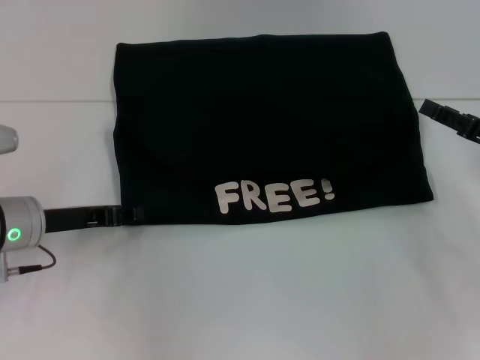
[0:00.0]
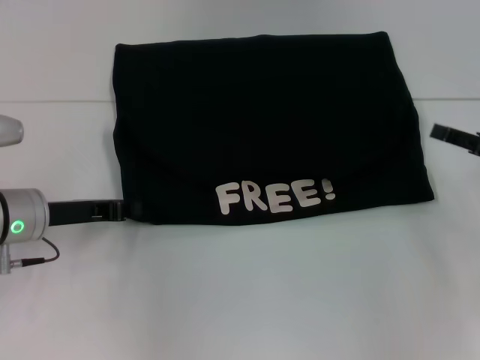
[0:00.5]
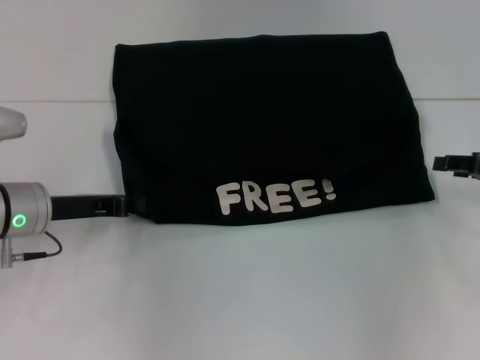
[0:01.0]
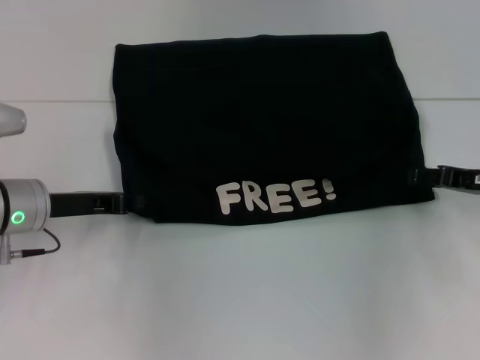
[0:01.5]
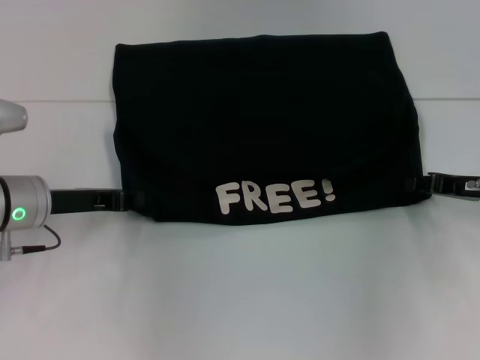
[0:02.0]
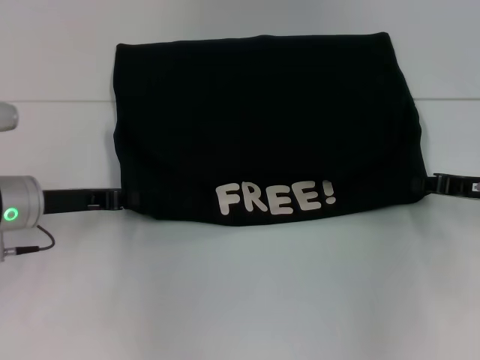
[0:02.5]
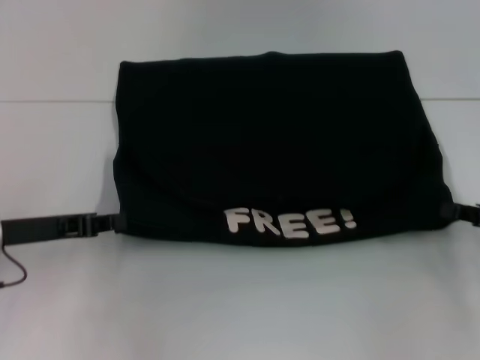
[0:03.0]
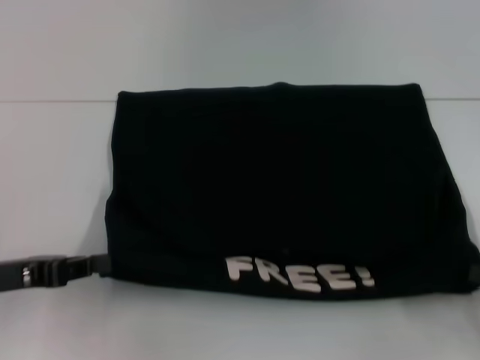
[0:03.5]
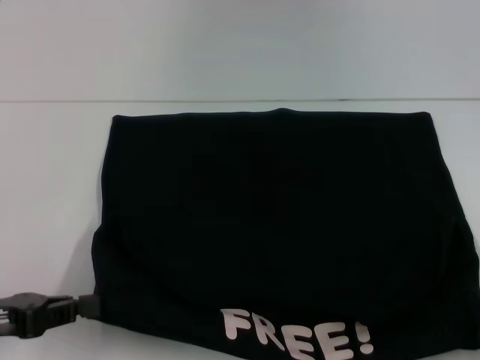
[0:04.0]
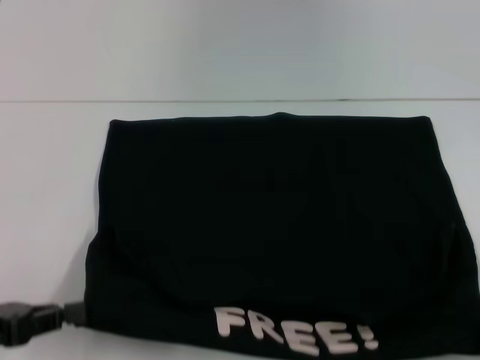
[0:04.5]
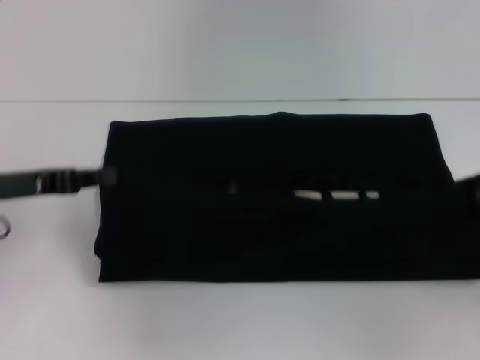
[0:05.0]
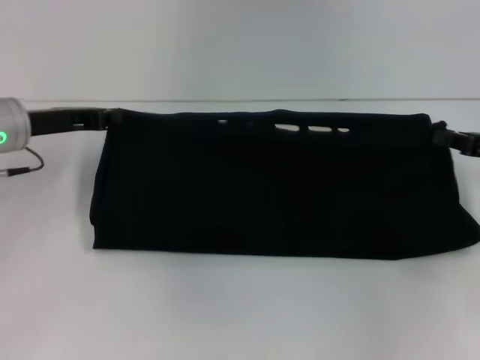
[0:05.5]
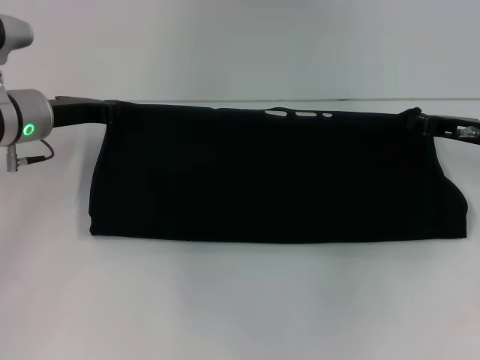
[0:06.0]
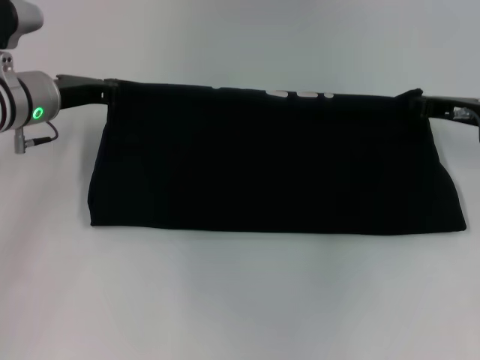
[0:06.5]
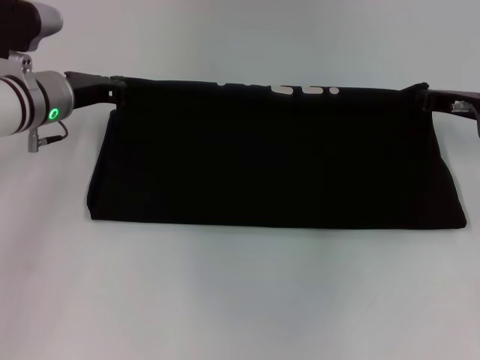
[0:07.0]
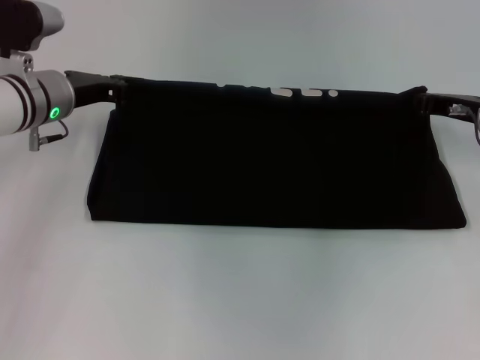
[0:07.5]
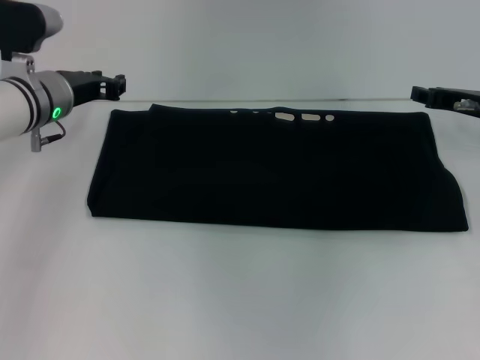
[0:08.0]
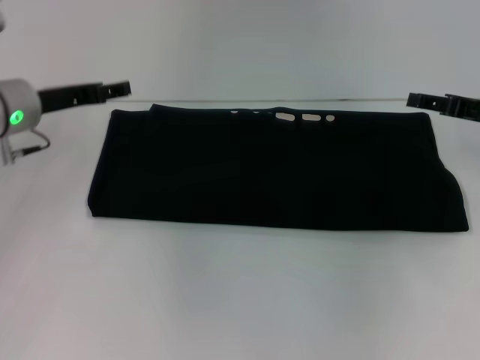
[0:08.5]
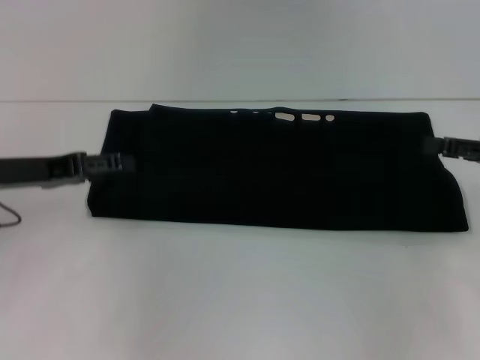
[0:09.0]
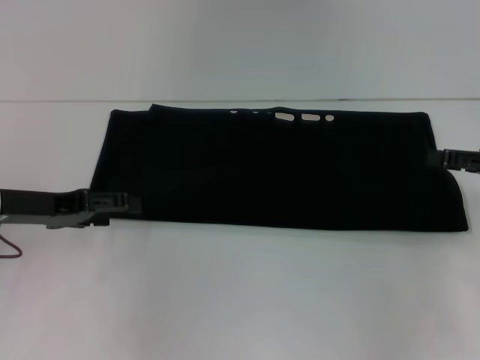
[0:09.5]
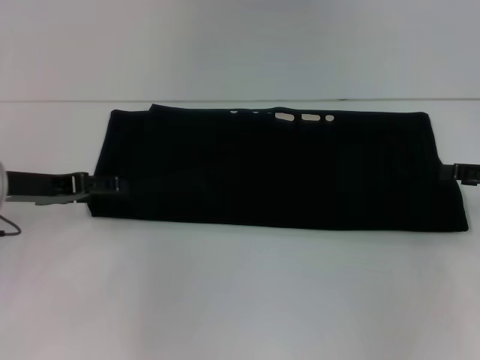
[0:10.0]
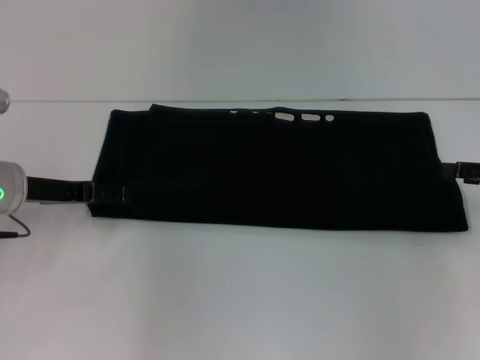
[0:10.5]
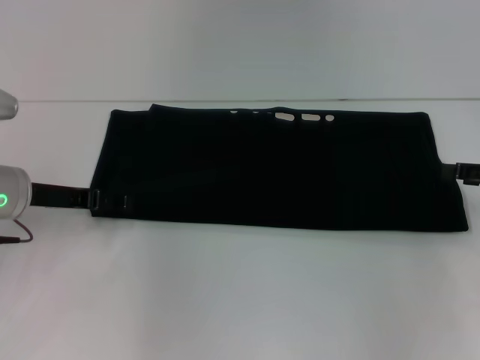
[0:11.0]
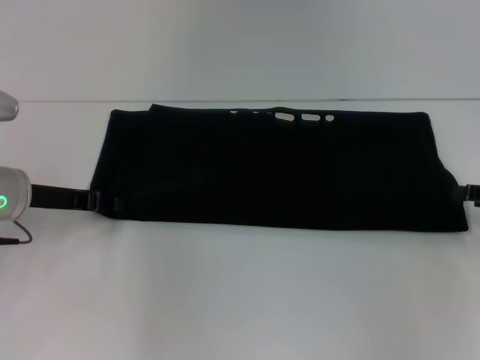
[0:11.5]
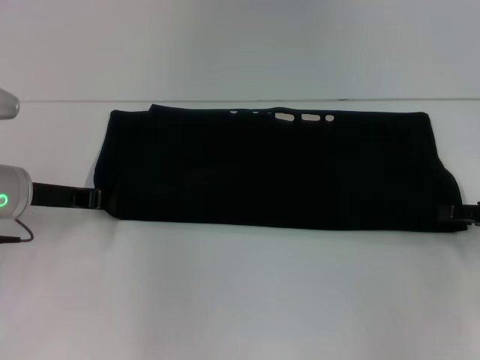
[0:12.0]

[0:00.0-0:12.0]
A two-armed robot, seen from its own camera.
Step, 0:00.0 to 0:04.0: Pull the clothes with your left hand.
Step, 0:00.0 to 0:04.0: Pull the clothes with your right hand.
Step, 0:04.5 to 0:08.0: Fold the clothes with your right hand.
0:00.0 to 0:02.0: The left gripper closes.
0:02.0 to 0:04.0: The left gripper moves backward and to the left, about 15 cm. The right gripper goes approximately 20 cm backward, and closes up.
0:04.0 to 0:06.0: The two grippers go roughly 20 cm forward.
0:06.0 to 0:08.0: The grippers make only small movements.
0:08.0 to 0:10.0: The right gripper travels backward and to the right by about 10 cm, and opens up; the left gripper moves backward and to the left, roughly 10 cm, and opens up.
0:10.0 to 0:12.0: The left gripper closes.

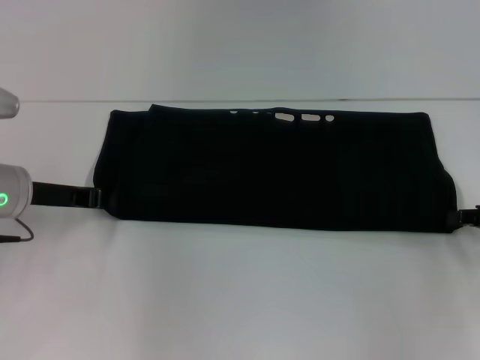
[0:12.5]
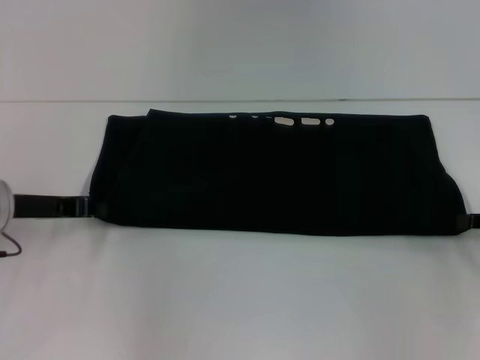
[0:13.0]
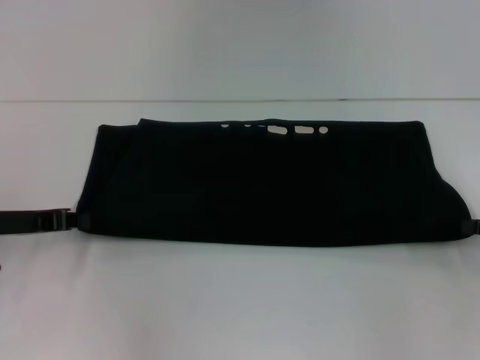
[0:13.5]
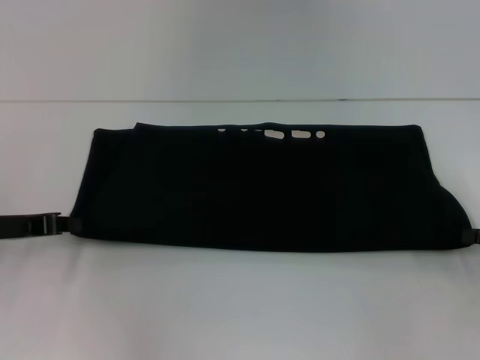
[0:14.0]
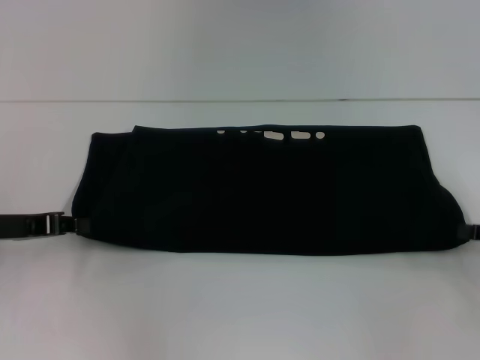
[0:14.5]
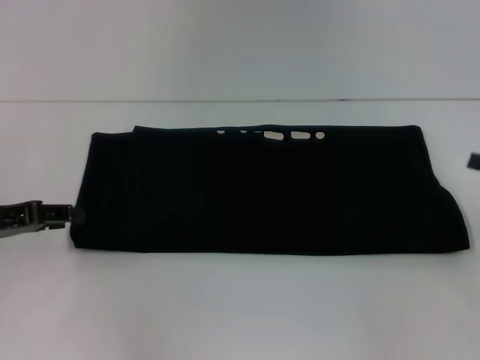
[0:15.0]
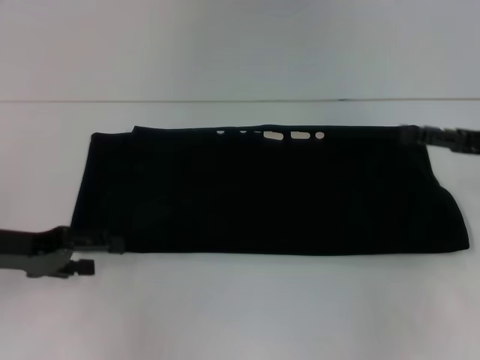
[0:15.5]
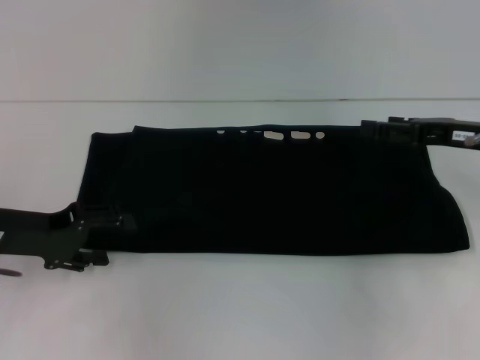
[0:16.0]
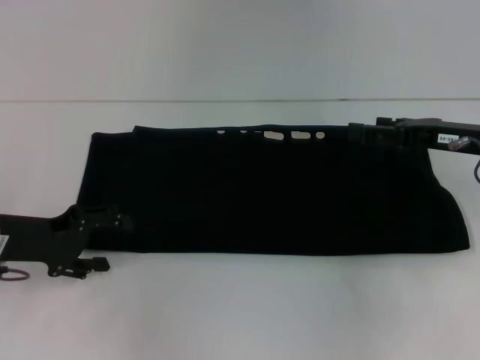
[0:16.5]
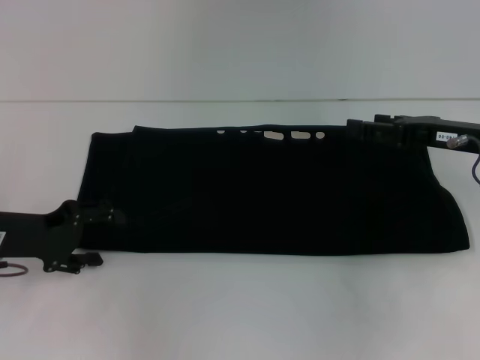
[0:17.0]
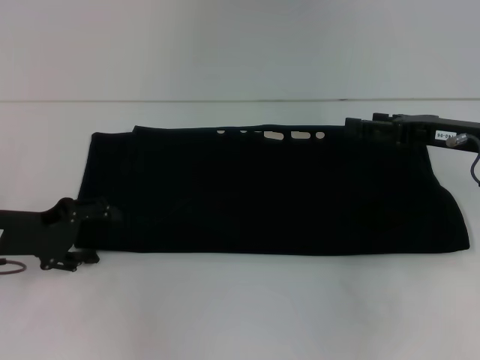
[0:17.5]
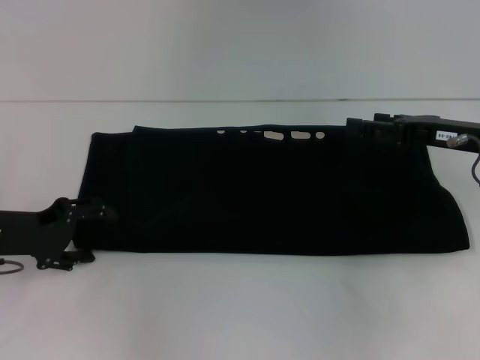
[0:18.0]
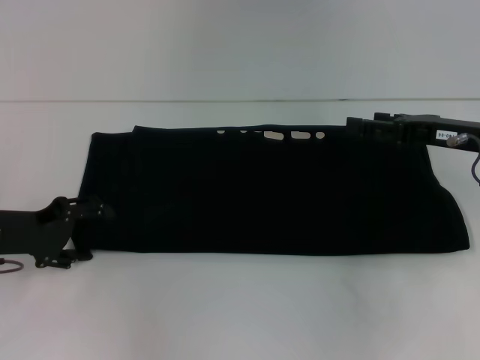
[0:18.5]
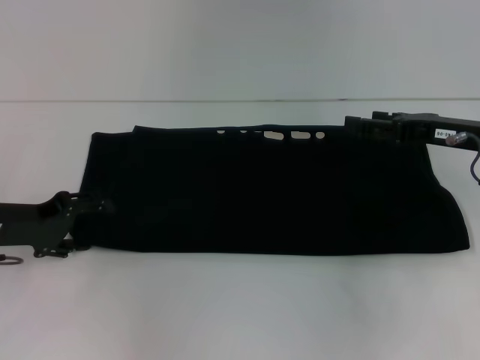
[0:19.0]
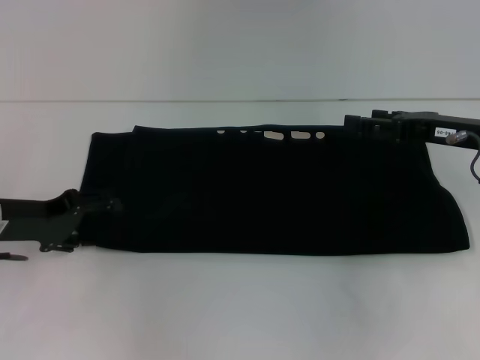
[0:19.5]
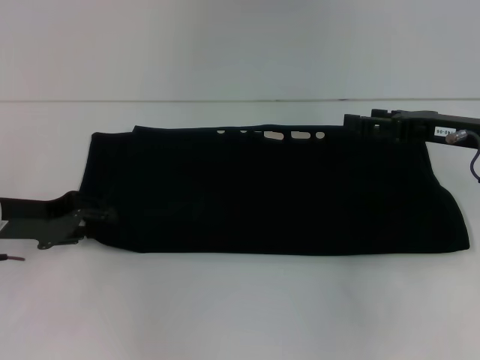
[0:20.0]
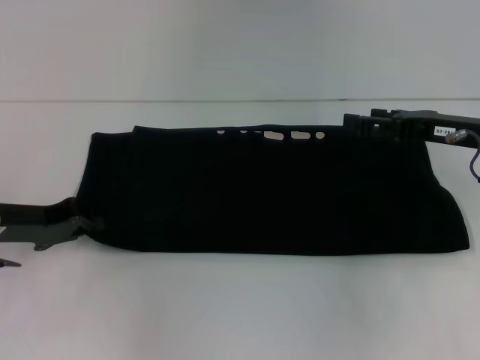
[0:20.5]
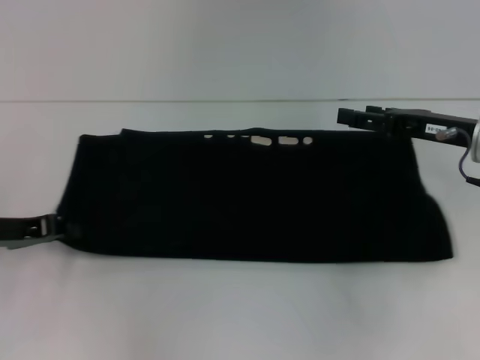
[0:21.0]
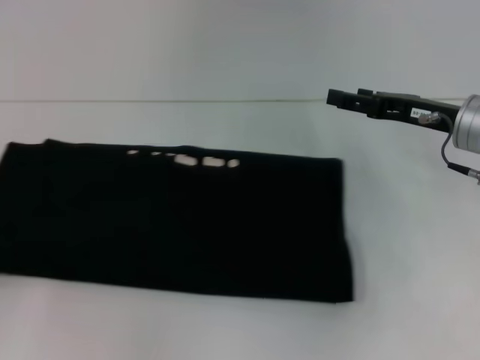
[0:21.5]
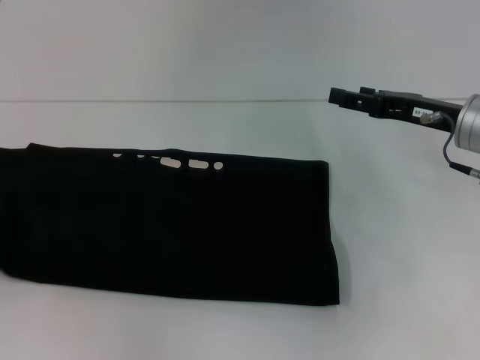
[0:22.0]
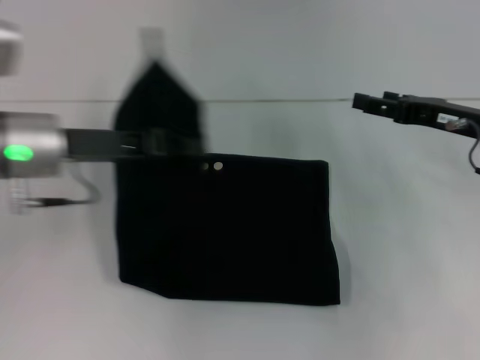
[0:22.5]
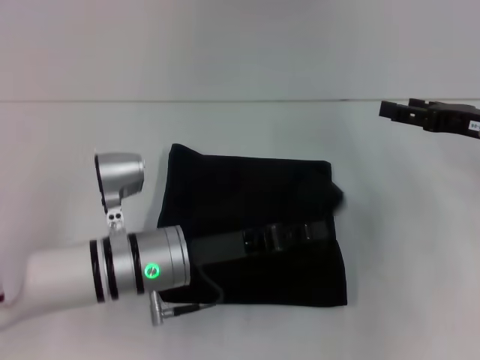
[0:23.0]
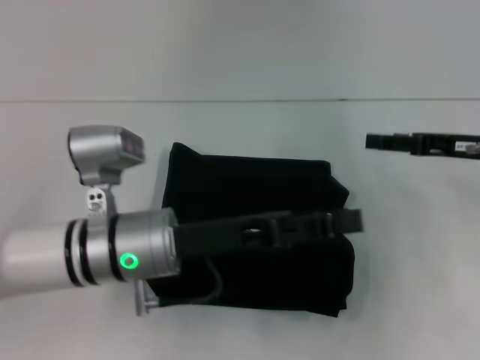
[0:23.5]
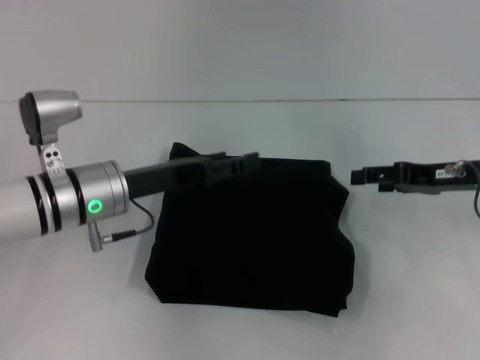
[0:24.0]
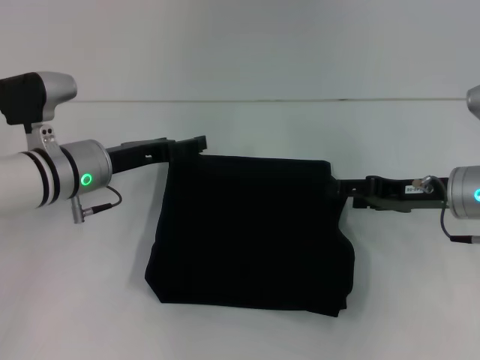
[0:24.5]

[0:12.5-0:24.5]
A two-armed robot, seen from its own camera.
Step, 0:12.5 to 0:23.5: Fold the clothes with your left hand.
0:12.5 to 0:14.5: The left gripper shifts about 5 cm backward.
0:14.5 to 0:16.5: The right gripper goes some 15 cm to the left, forward and upward, and opens, while the left gripper opens up.
0:16.5 to 0:18.5: The grippers make only small movements.
0:18.5 to 0:20.5: The left gripper closes up.
0:20.5 to 0:22.5: The left gripper is displaced to the right and upward by approximately 10 cm.
0:22.5 to 0:24.5: The right gripper shifts by some 5 cm. Meanwhile the left gripper goes roughly 10 cm downward, and opens its fingers.

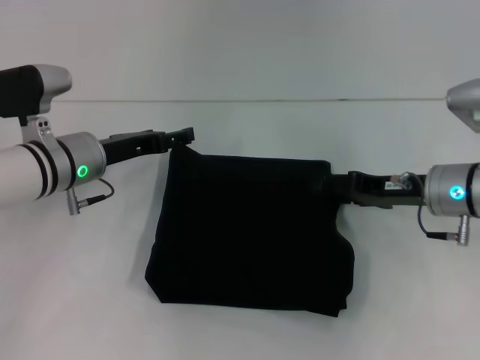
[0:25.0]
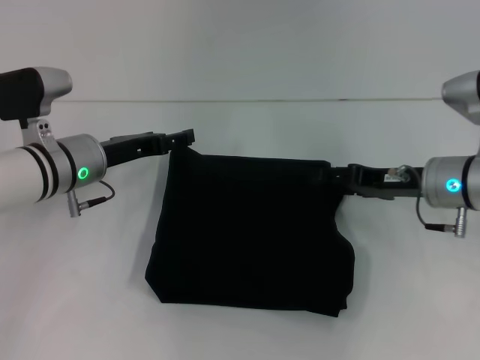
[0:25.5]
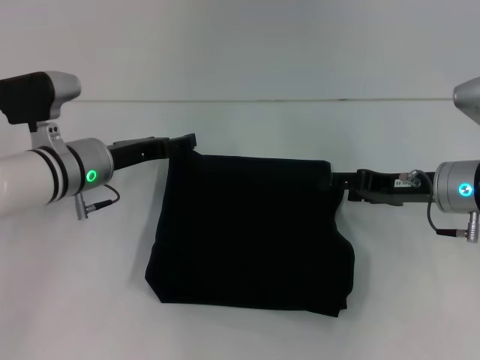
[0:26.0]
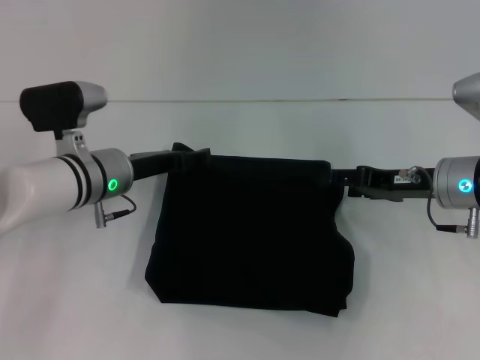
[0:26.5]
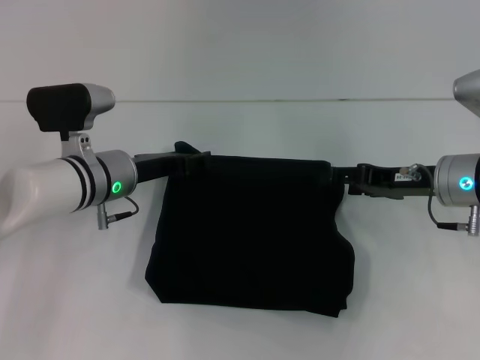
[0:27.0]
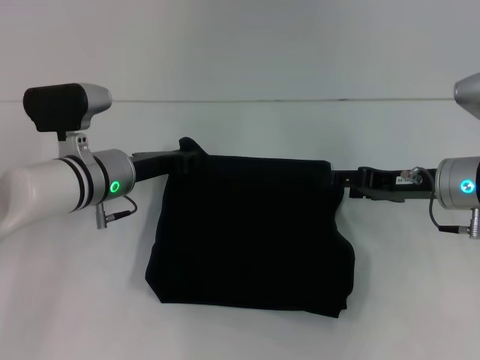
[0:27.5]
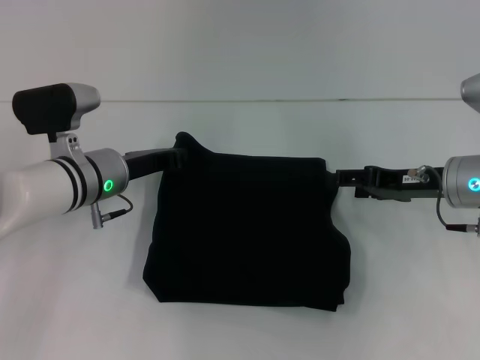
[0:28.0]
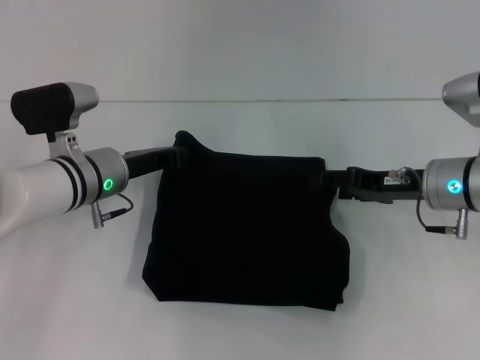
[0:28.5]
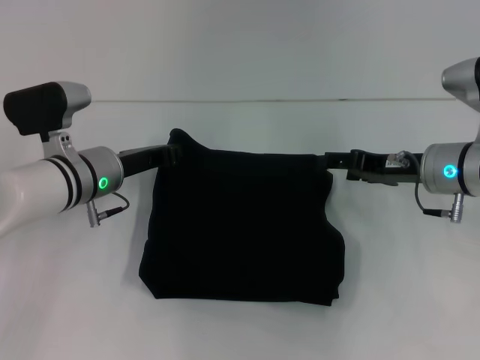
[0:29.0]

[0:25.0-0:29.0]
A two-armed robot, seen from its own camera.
0:25.0 to 0:27.0: There are only small adjustments of the grippers.
0:27.0 to 0:29.0: The left gripper closes its fingers.
